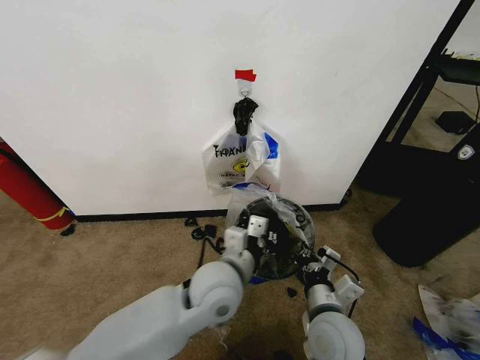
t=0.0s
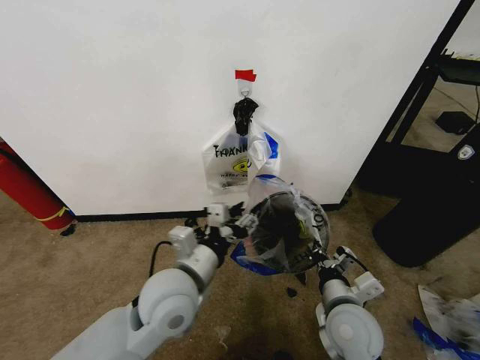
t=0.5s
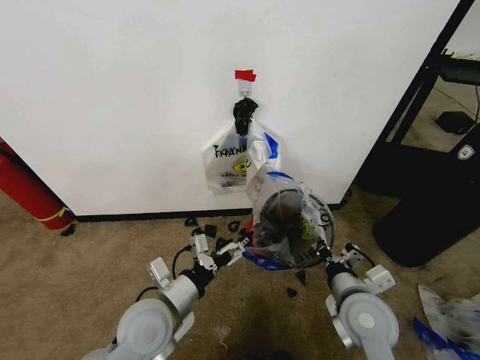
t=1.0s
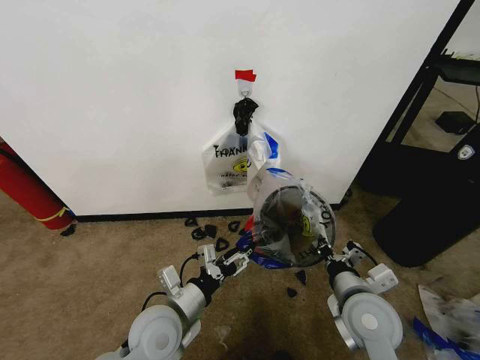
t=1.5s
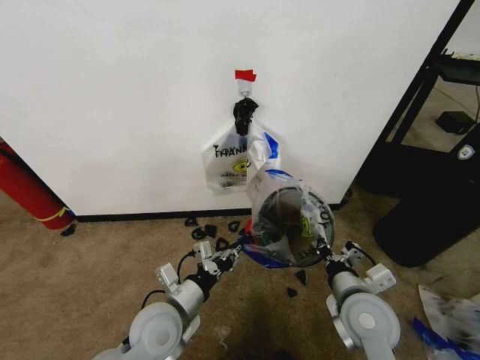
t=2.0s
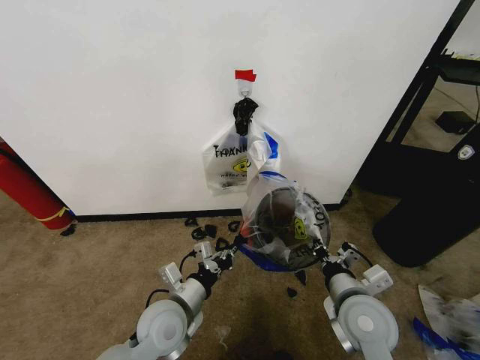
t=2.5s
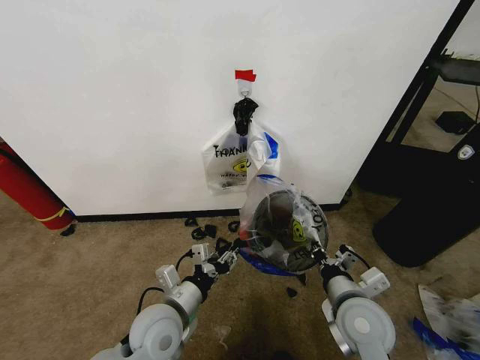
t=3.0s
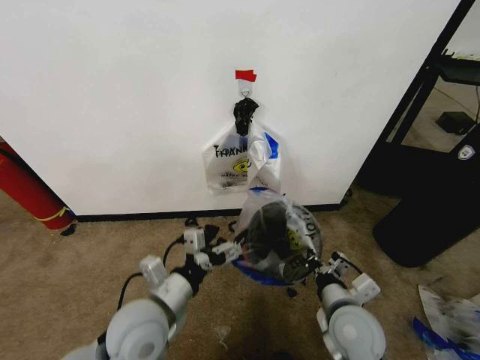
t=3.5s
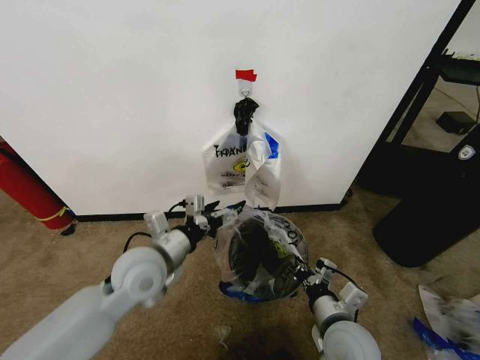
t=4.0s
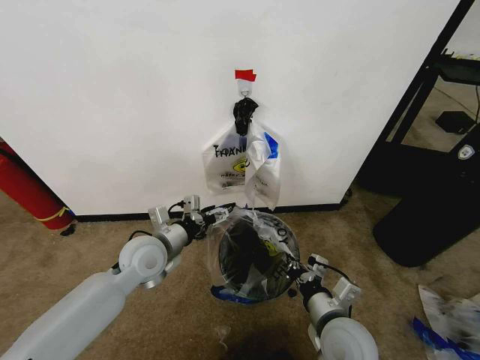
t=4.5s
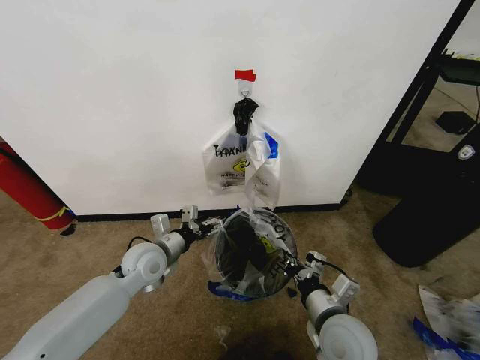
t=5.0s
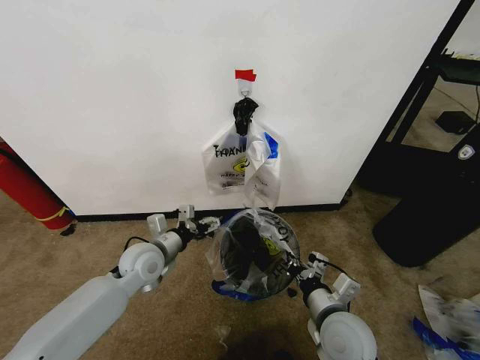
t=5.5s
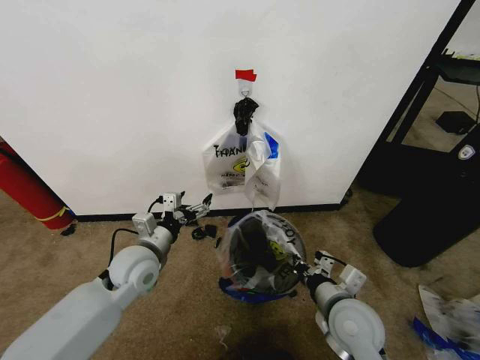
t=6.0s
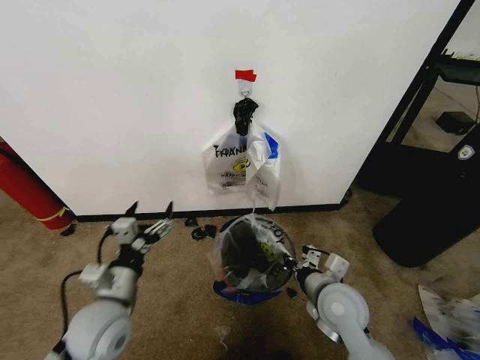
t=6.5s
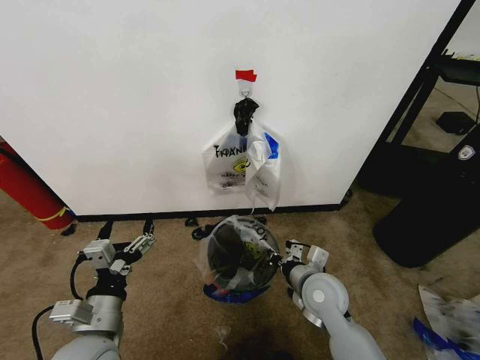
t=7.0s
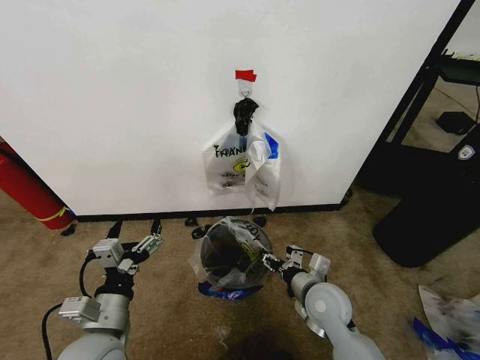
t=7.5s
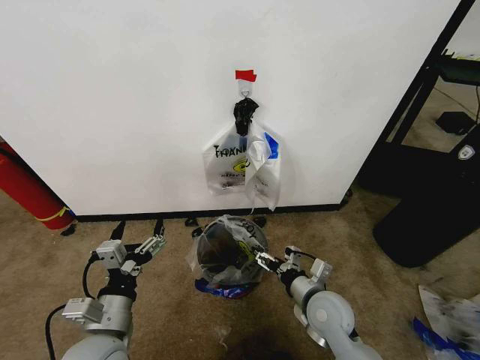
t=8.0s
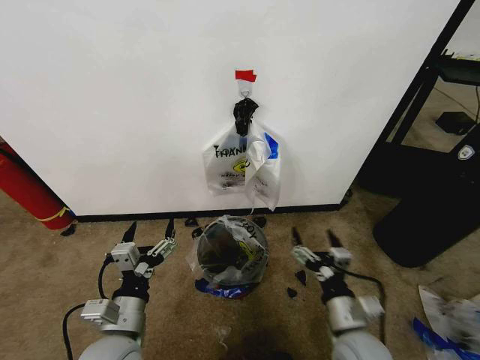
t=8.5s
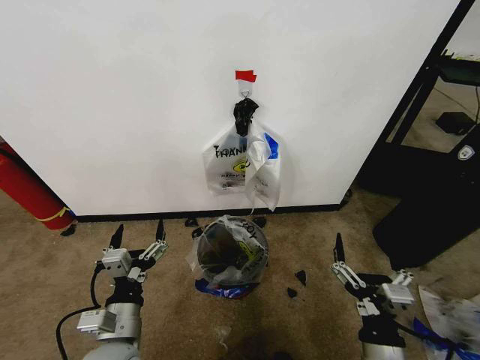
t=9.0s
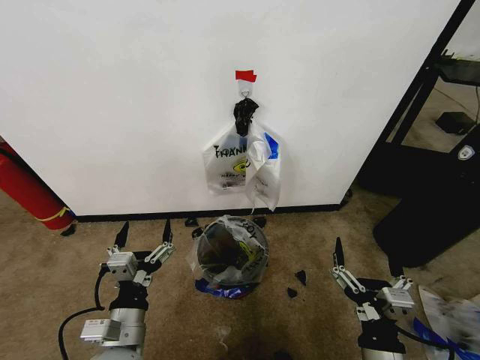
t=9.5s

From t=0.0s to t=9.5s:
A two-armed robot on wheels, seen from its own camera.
Task of the whole recording: Pick up the garbage bag from the wall and place it over the trash bin.
From t=0.0s to t=2.0s: The left gripper shifts about 15 cm to the left and downward, and opens and closes again. Meanwhile the right gripper travels to the right by some 5 cm.
From t=2.0s to t=4.0s: The right gripper shifts by some 5 cm. Meanwhile the left gripper travels upward and forward by roughly 10 cm, and opens up.
From t=4.0s to t=5.5s: The left gripper travels downward and forward by some 10 cm.
From t=5.5s to t=7.5s: The left gripper heads backward, covering about 20 cm; the right gripper heads forward, covering some 5 cm, and opens up.
From t=7.5s to t=9.5s: The right gripper travels backward by about 20 cm, and opens up.

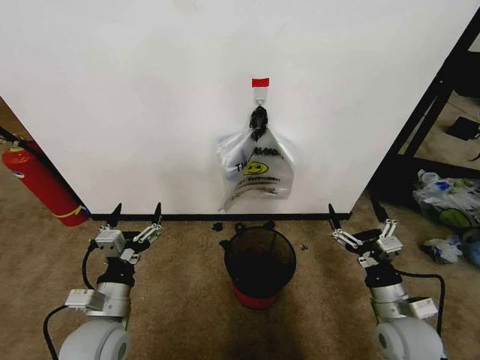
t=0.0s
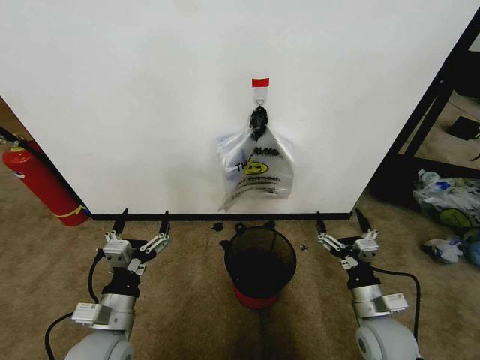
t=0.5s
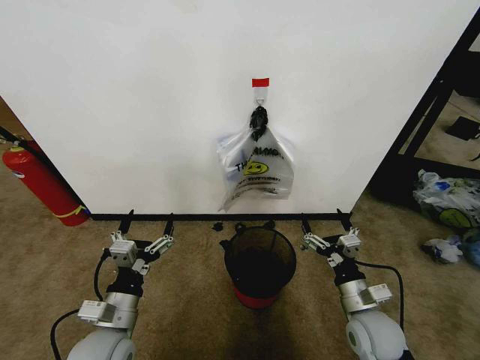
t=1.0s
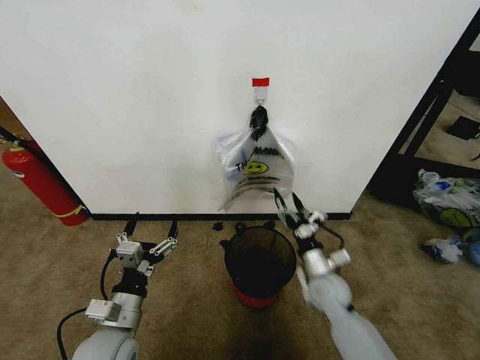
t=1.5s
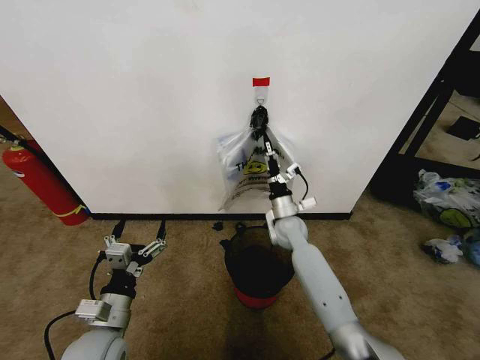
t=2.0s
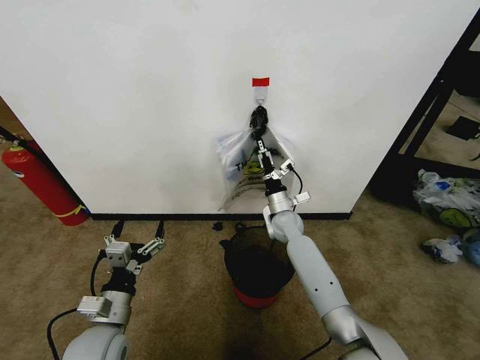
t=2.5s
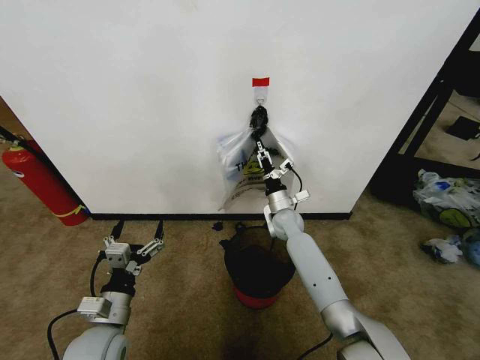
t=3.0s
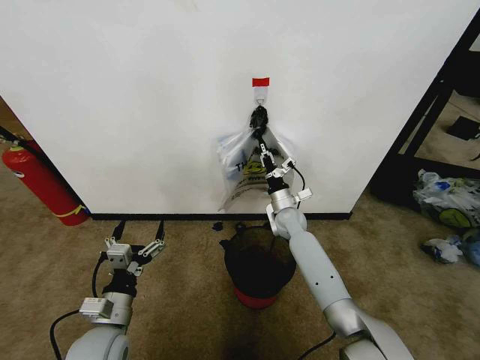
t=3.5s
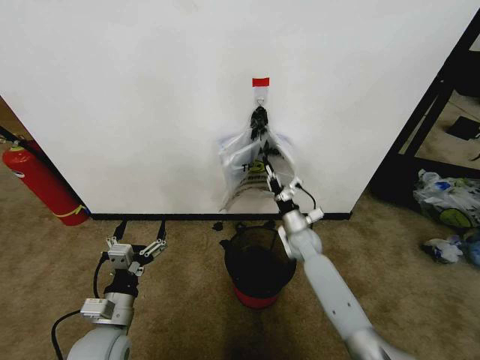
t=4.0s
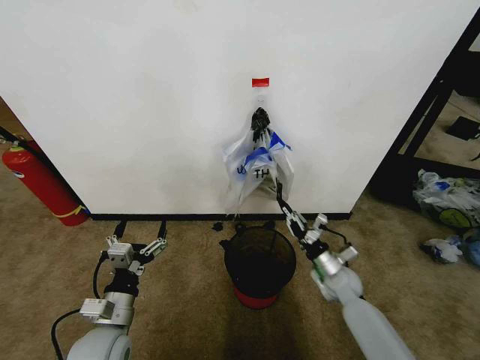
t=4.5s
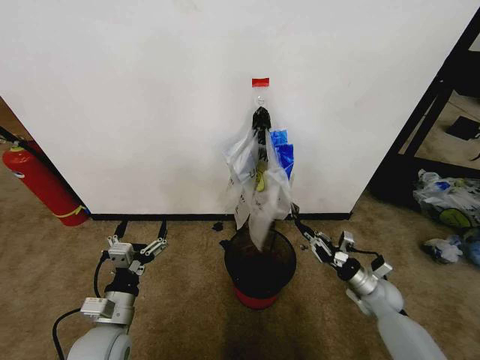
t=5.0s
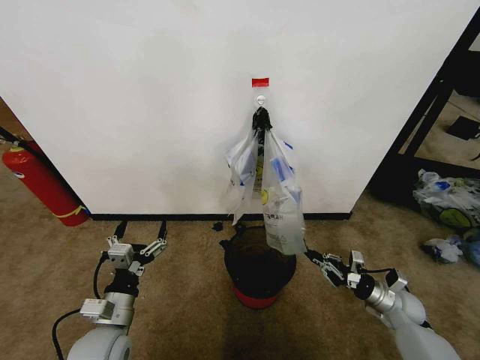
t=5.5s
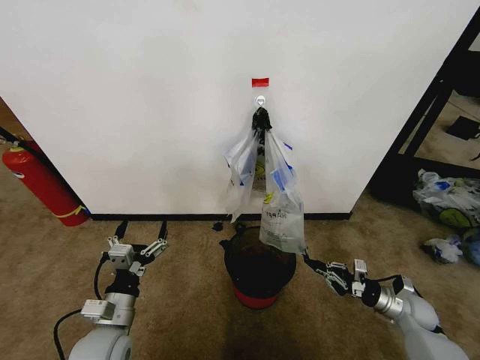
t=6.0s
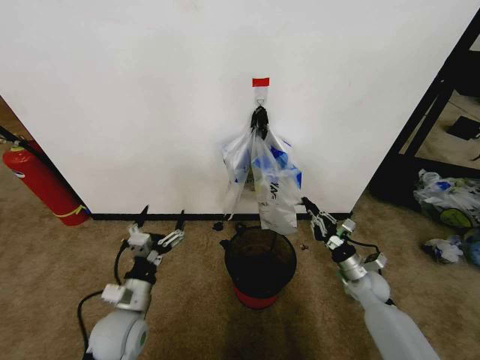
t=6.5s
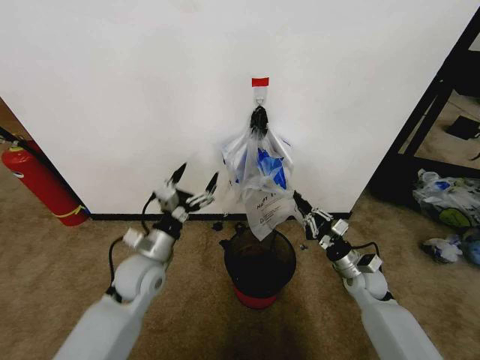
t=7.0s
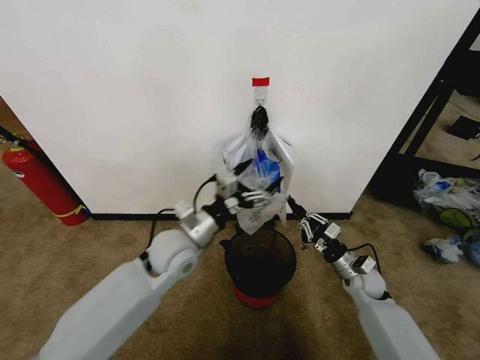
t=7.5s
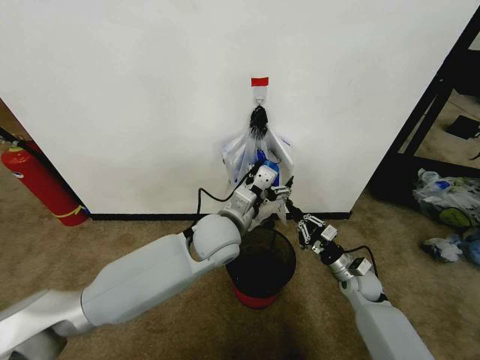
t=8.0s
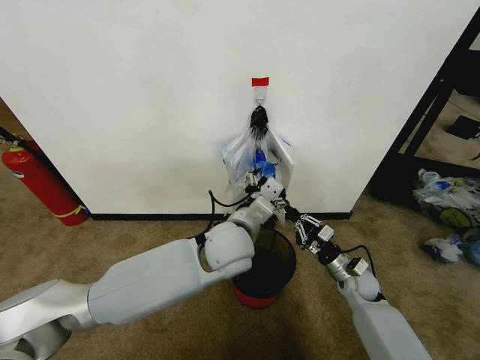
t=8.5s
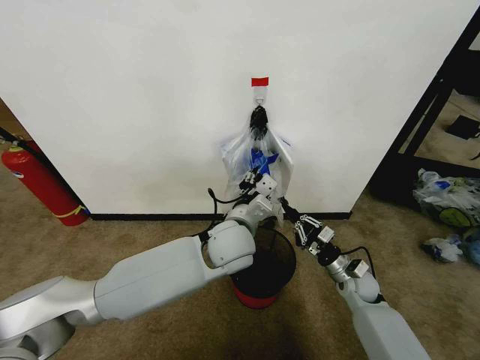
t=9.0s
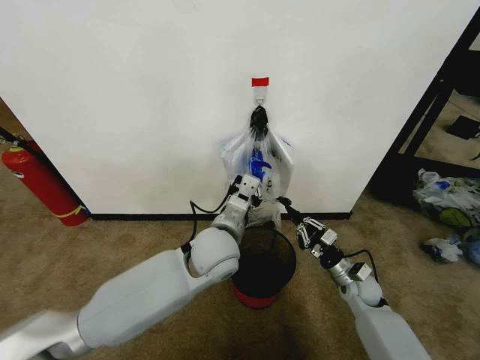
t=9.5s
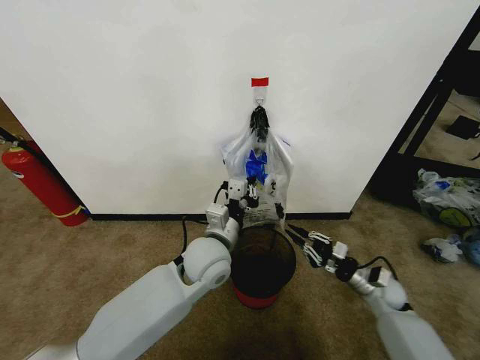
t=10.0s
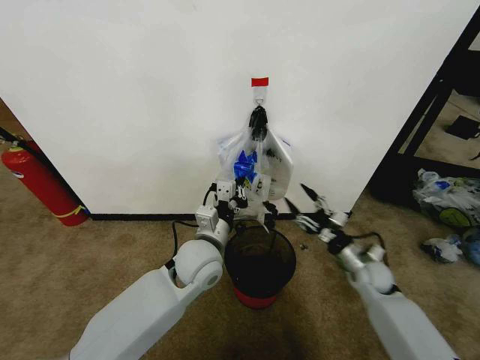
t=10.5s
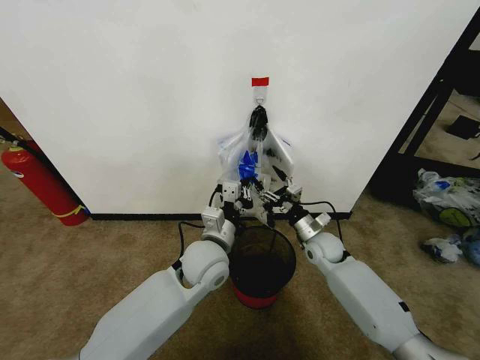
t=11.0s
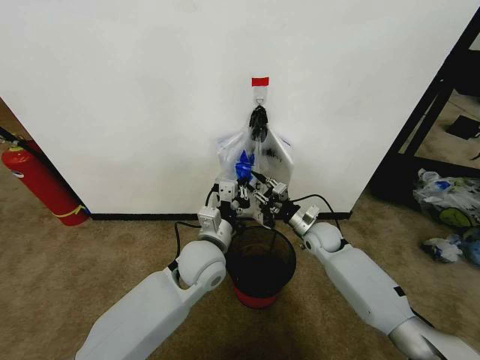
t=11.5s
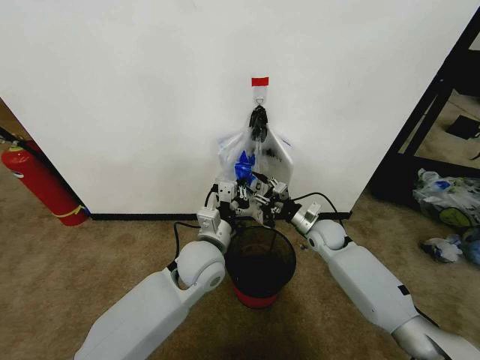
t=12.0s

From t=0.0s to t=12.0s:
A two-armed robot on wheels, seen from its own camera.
Task of the whole recording: Pick up the garbage bag from the wall and place it over the trash bin.
From t=2.0s to t=4.0s: The right gripper goes some 5 cm downward, and closes its fingers.
From t=4.0s to t=6.0s: The right gripper heads to the right and backward, covering approximately 30 cm.
From t=6.0s to t=8.0s: The left gripper is displaced to the right, forward and upward by roughly 30 cm, while the right gripper moves to the left and forward, about 15 cm.
From t=8.0s to t=10.0s: The right gripper travels to the right by some 5 cm, while the left gripper changes place by about 5 cm, and closes up.
From t=10.0s to t=12.0s: The right gripper heads to the left, forward and upward, covering approximately 20 cm, and opens its fingers.

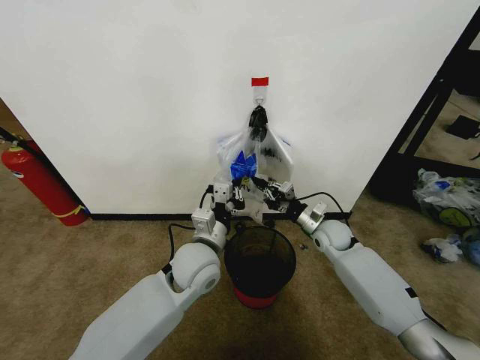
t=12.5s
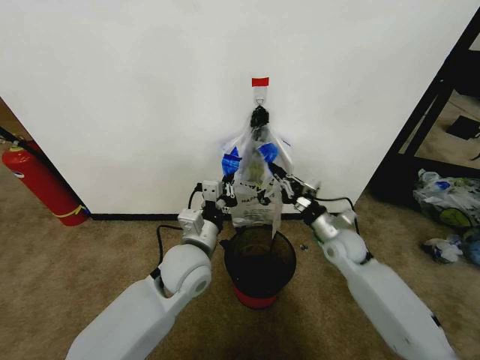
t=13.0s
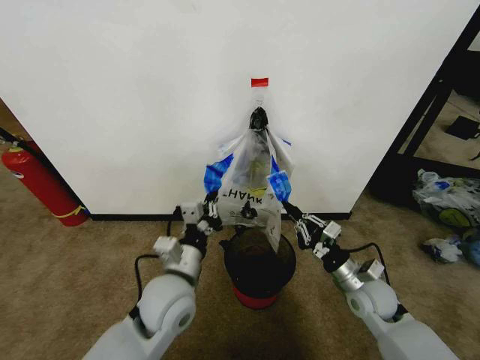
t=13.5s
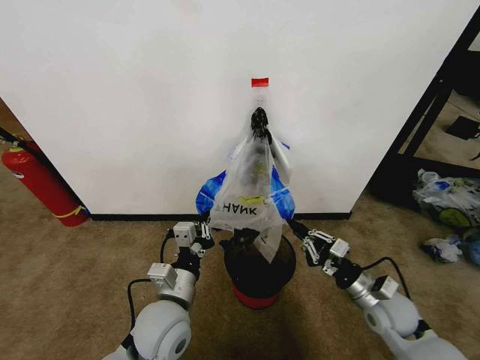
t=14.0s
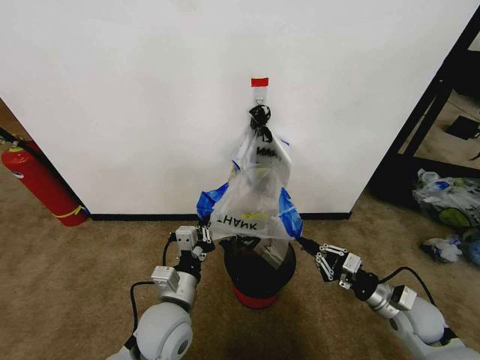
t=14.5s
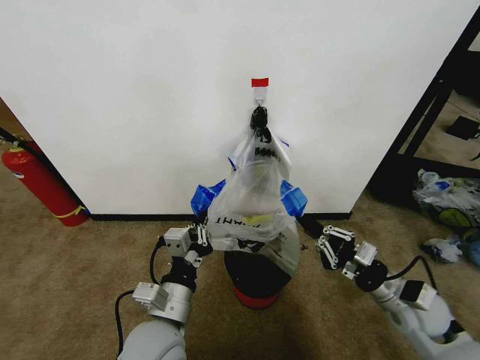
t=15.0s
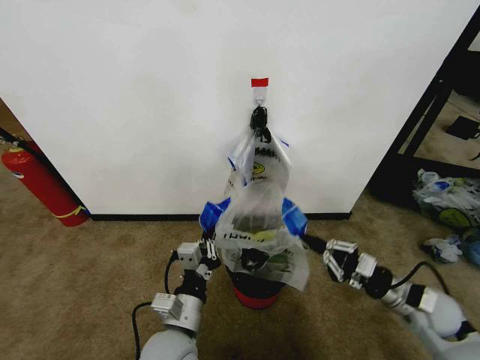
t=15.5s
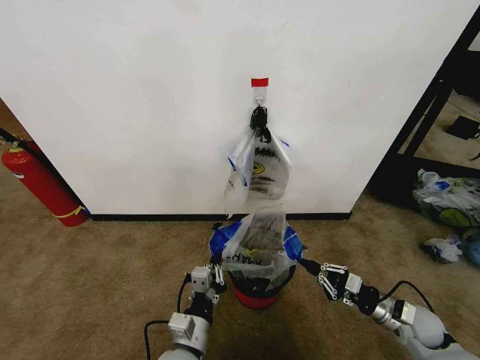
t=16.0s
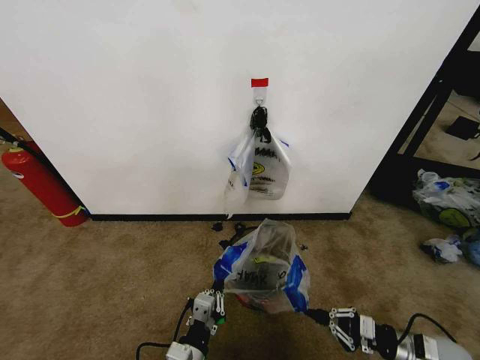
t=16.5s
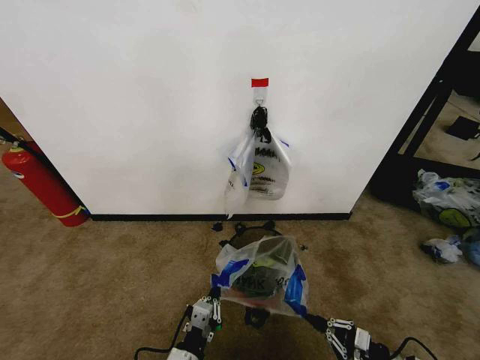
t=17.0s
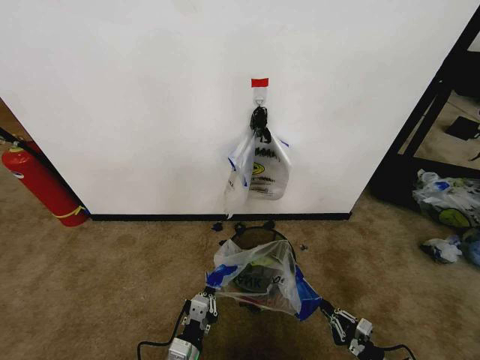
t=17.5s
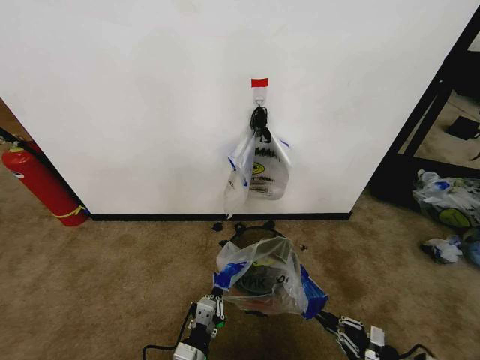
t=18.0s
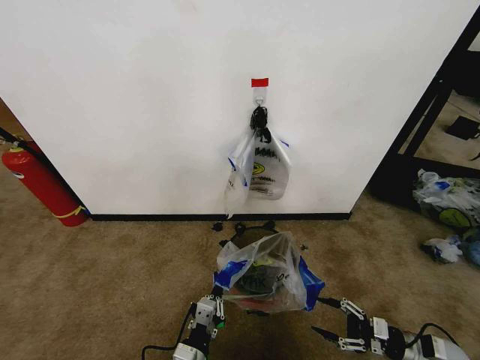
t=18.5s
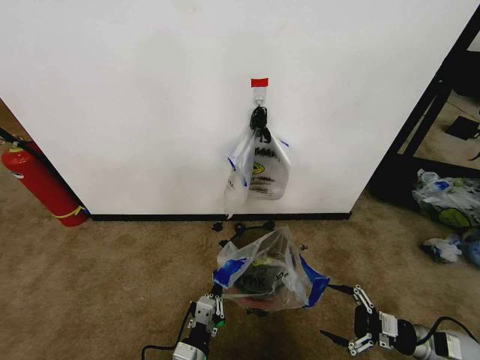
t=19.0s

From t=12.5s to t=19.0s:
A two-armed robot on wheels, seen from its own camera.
Task of the whole recording: Pick up the garbage bag from the wall and place it over the trash bin.
From t=12.5s to t=14.5s: The right gripper is displaced backward and to the right by some 25 cm. Meanwhile the left gripper travels backward by approximately 10 cm.
From t=14.5s to t=17.0s: The right gripper goes about 15 cm downward and backward. Meanwhile the left gripper moves backward and downward, about 15 cm.
From t=17.0s to t=19.0s: The right gripper goes approximately 10 cm upward, forward and to the right, and opens its fingers.
